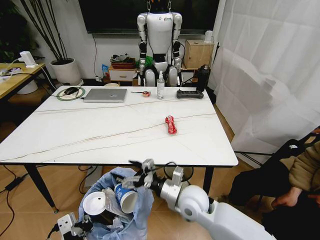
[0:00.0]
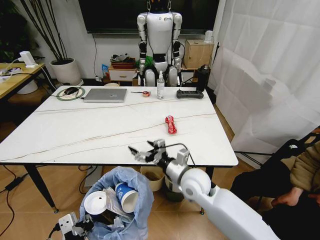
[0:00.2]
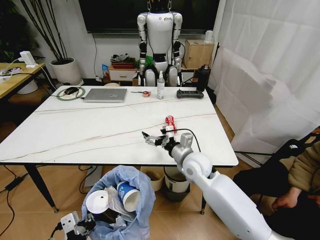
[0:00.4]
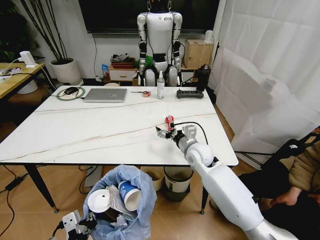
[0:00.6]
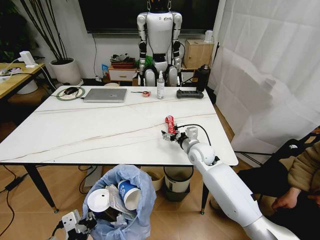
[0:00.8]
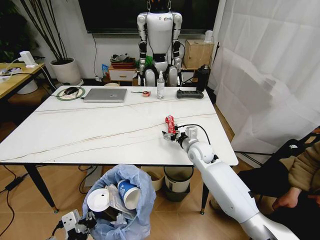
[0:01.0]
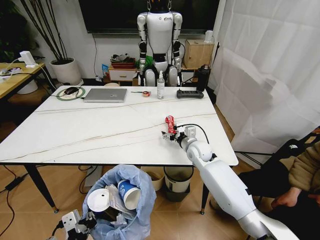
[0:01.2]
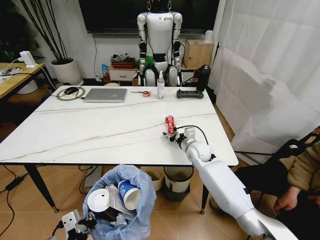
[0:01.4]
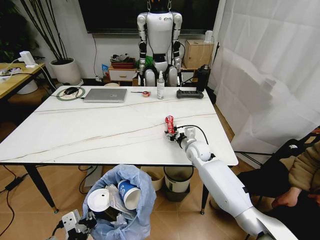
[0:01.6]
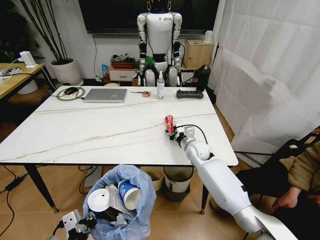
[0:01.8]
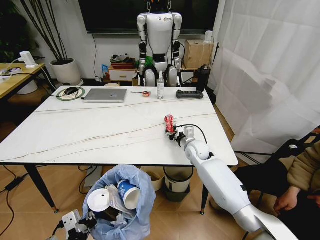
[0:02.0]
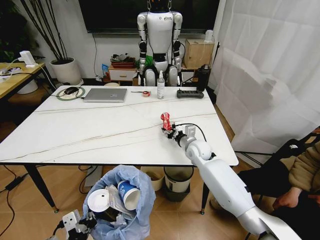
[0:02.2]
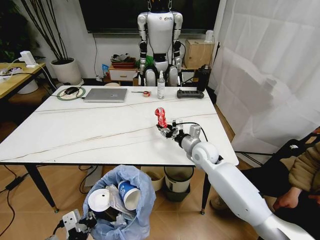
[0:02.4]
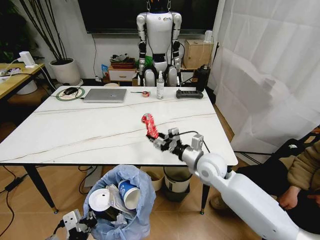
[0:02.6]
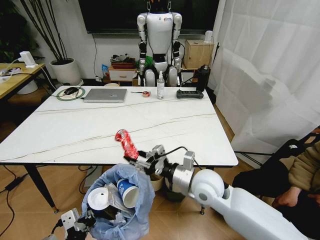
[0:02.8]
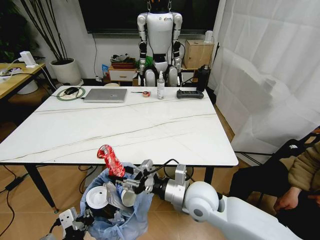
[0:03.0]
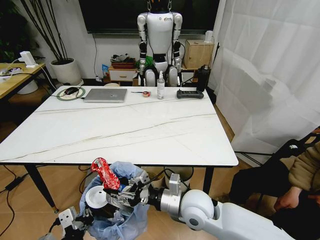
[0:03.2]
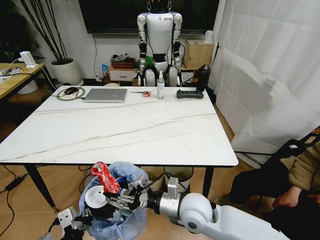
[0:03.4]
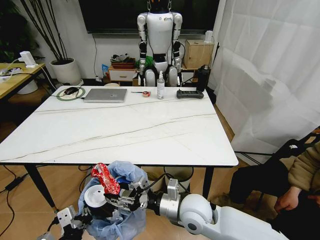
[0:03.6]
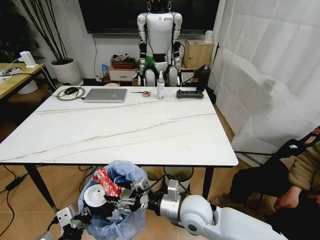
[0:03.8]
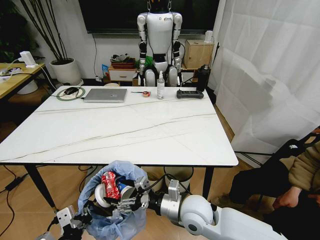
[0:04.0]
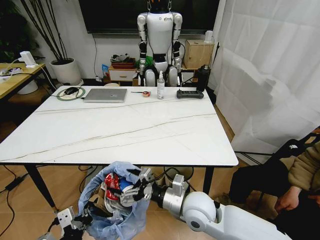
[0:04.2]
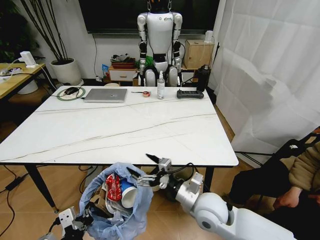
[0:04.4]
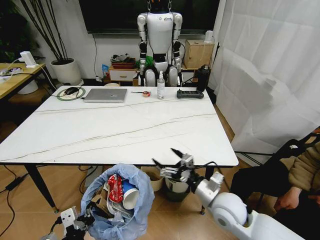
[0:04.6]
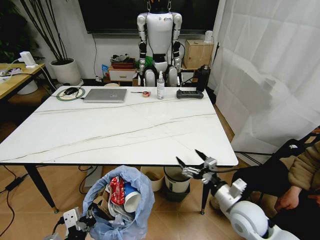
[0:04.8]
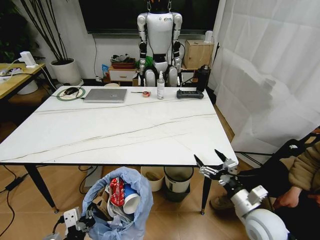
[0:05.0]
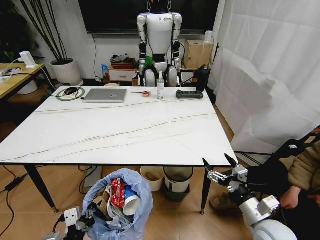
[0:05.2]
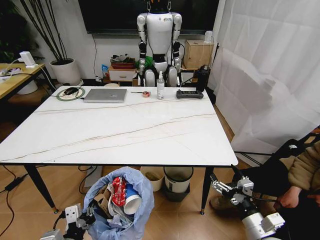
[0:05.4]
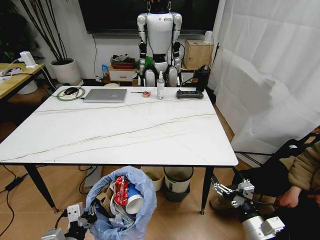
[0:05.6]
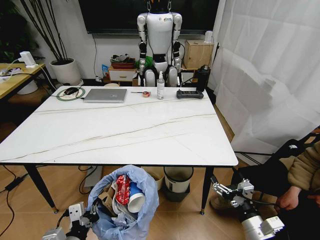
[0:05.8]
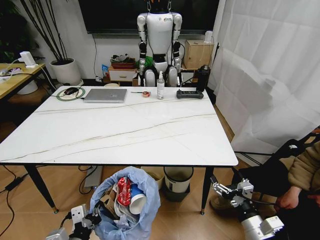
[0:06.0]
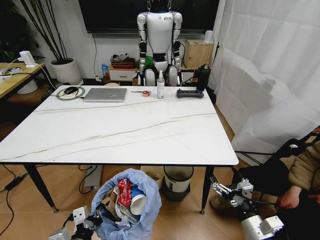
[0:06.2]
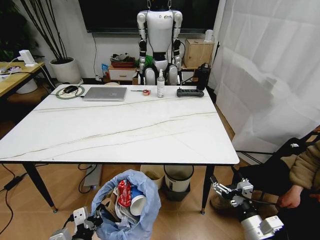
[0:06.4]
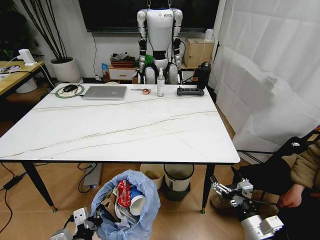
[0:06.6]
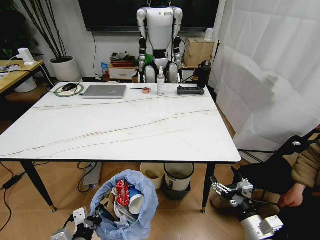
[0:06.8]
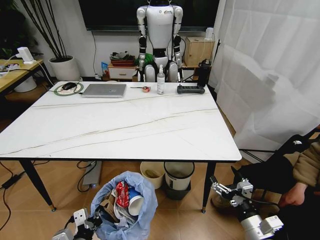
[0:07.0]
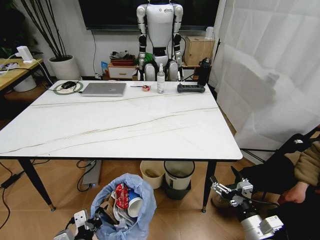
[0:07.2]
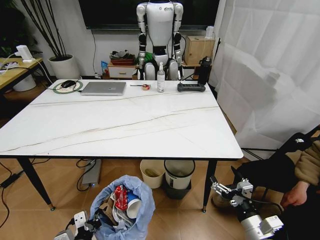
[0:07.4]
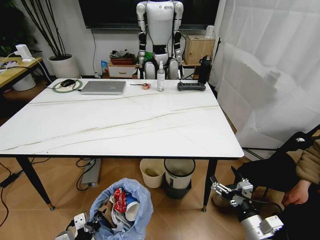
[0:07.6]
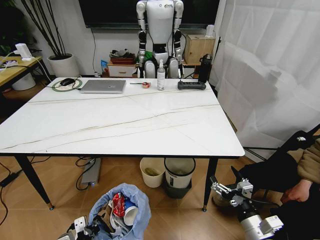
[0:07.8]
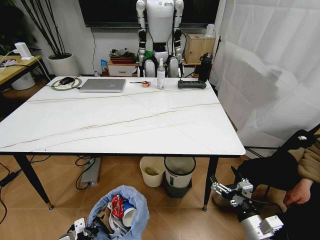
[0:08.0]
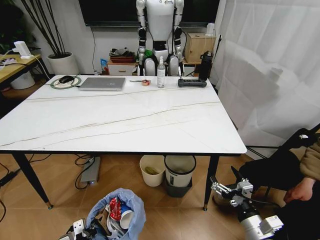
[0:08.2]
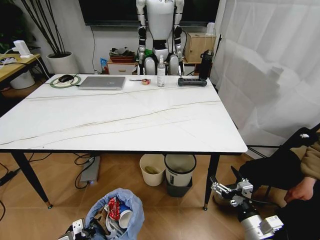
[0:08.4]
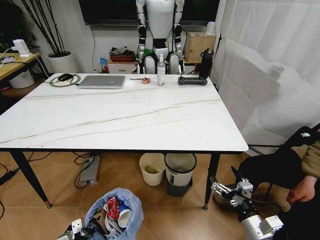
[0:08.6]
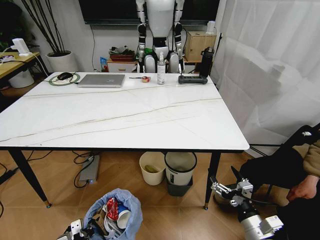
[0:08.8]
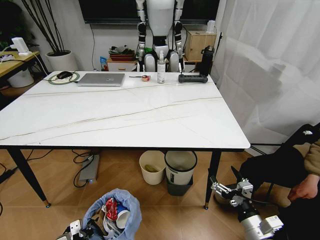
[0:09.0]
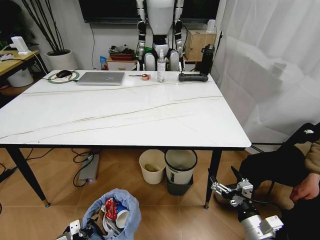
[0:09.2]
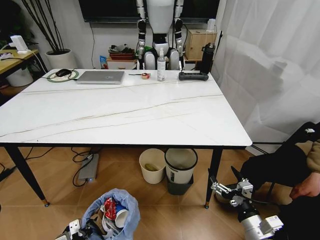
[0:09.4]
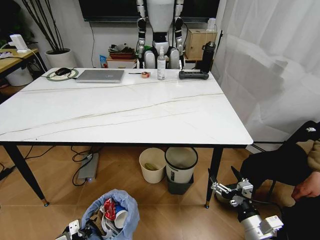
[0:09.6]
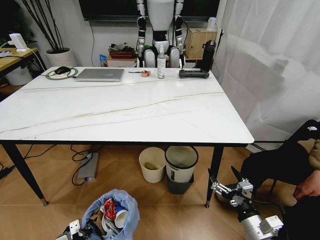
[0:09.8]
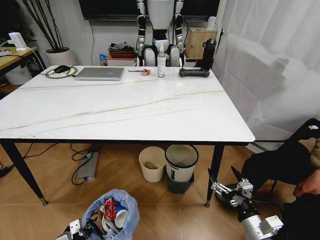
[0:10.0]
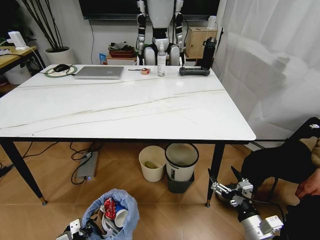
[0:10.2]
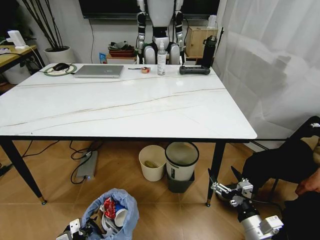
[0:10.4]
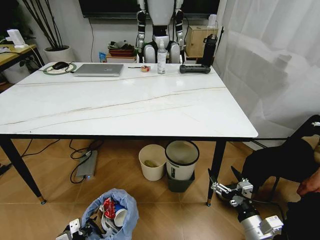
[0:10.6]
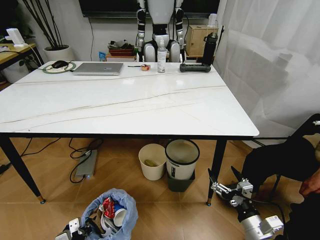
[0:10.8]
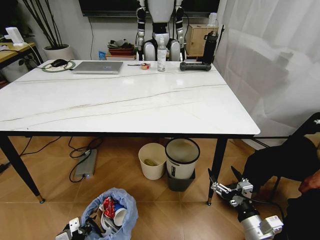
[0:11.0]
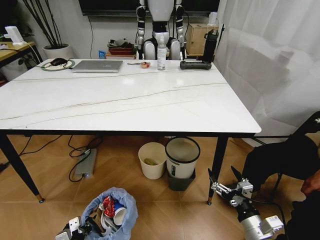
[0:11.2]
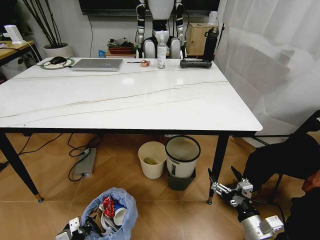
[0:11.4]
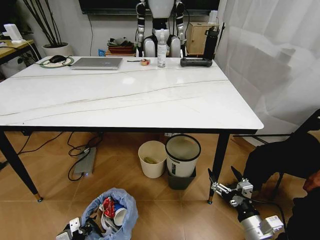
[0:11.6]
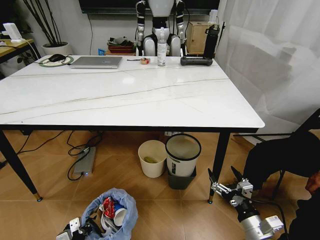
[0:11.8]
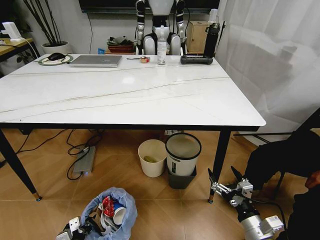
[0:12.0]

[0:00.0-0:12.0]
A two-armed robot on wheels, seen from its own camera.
Task of the whole recording: Pick up the trash bin and place the trash from the table into it.
0:00.0 to 0:01.6: The right gripper goes approximately 20 cm forward, and closes up.
0:01.6 to 0:03.0: The right gripper shifts roughly 20 cm backward.
0:03.0 to 0:04.4: The right gripper opens.
0:04.4 to 0:06.0: The right gripper moves to the right and backward, about 20 cm.
0:06.0 to 0:07.6: The left gripper heads downward, covering roughly 10 cm.
0:07.6 to 0:09.0: The left gripper is displaced downward by approximately 10 cm.

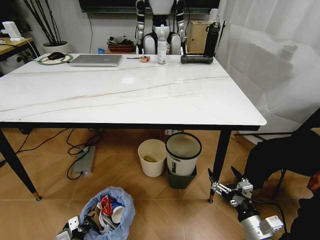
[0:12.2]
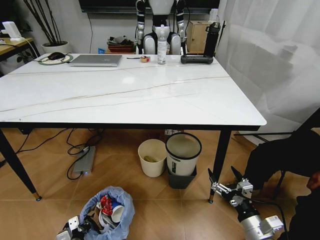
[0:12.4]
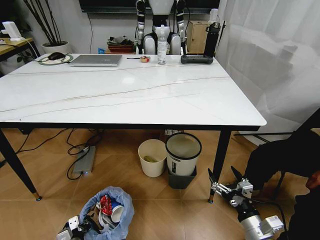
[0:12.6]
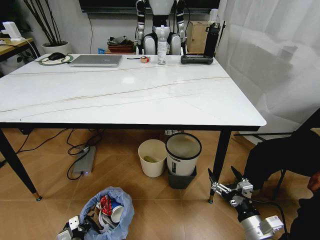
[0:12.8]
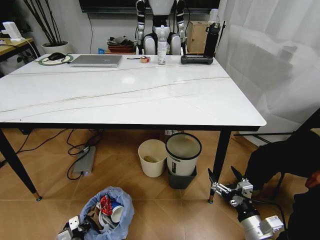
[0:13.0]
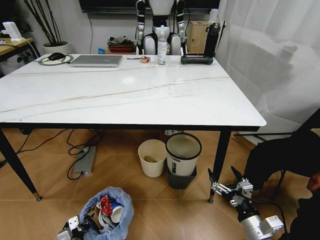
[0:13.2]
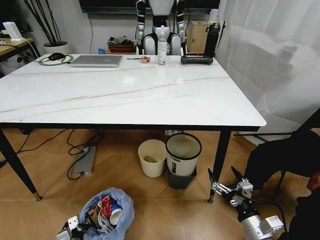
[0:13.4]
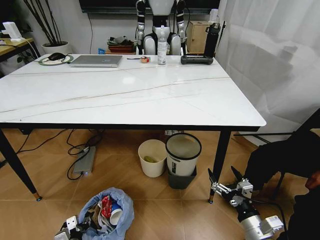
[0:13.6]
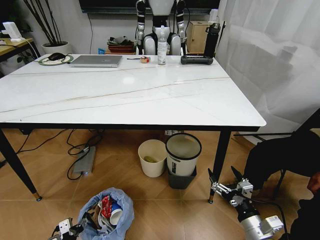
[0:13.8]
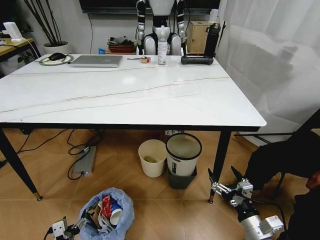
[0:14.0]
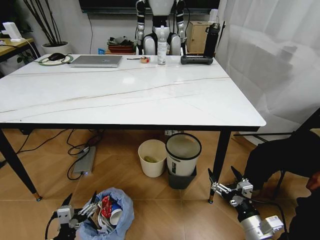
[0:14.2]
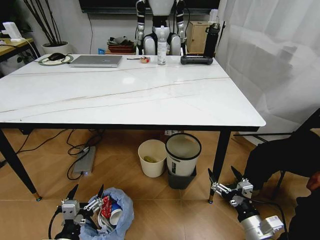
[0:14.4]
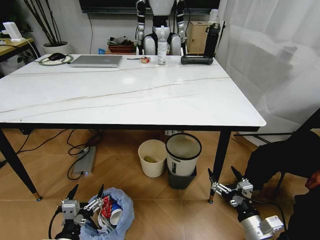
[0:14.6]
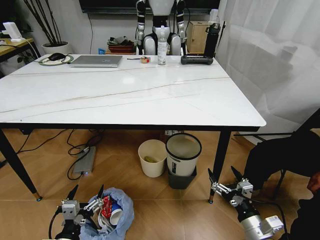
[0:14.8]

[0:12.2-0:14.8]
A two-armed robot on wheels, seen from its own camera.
Task of the whole recording: Pick up the trash bin and place the trash from the table into it.
0:12.2 to 0:13.4: The grippers move only a little.
0:13.4 to 0:14.8: The left gripper shifts some 20 cm upward, and opens up.

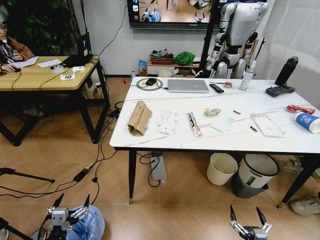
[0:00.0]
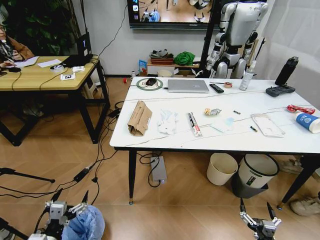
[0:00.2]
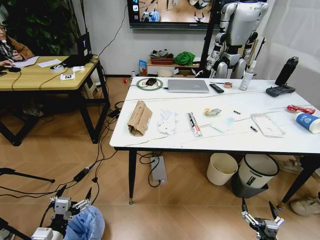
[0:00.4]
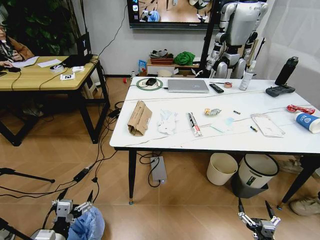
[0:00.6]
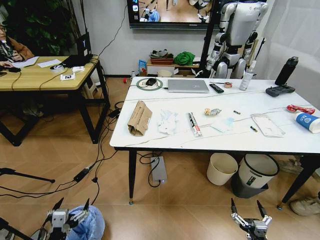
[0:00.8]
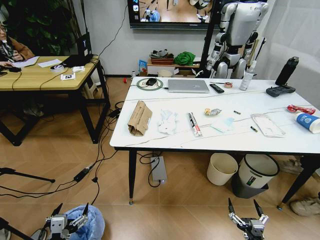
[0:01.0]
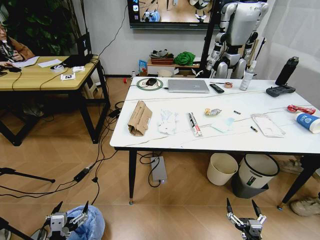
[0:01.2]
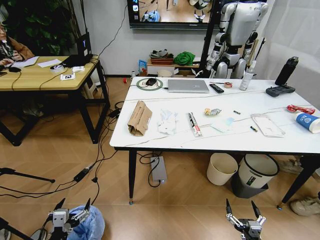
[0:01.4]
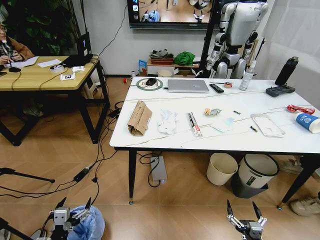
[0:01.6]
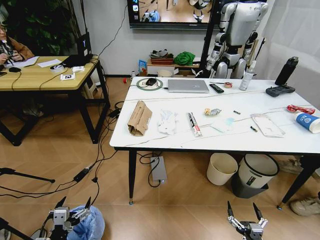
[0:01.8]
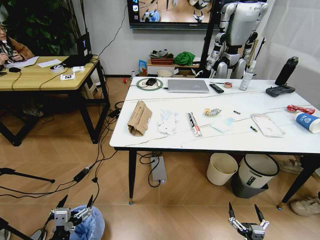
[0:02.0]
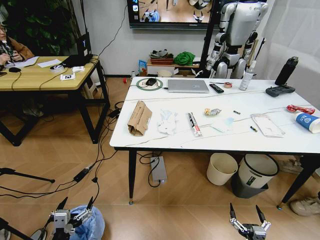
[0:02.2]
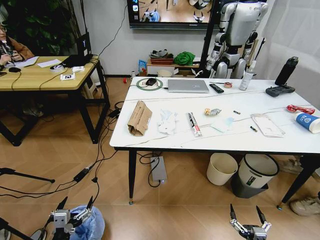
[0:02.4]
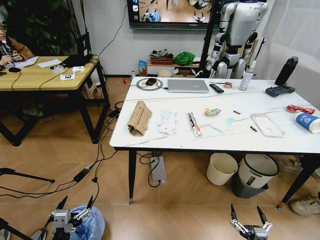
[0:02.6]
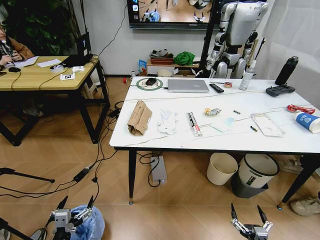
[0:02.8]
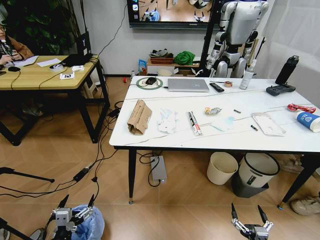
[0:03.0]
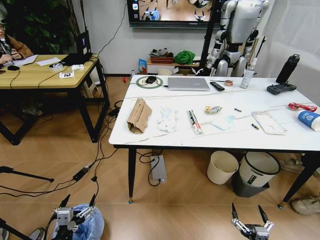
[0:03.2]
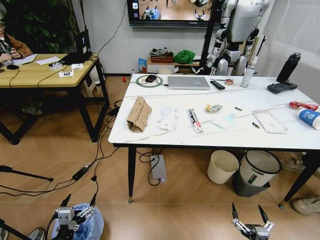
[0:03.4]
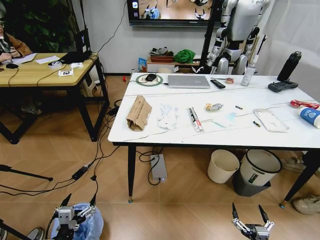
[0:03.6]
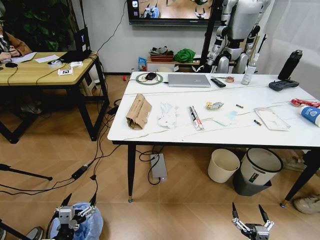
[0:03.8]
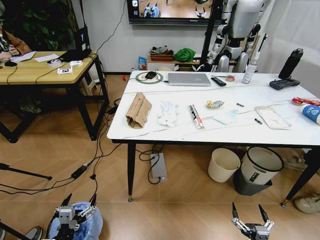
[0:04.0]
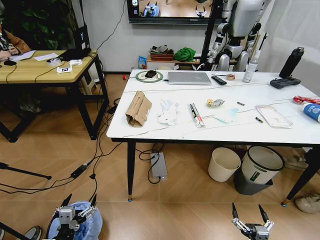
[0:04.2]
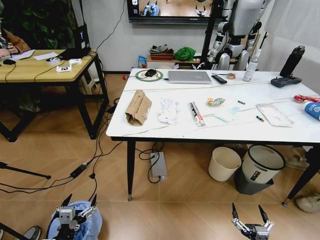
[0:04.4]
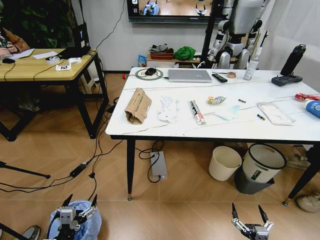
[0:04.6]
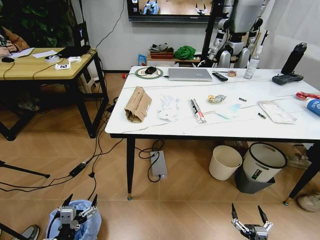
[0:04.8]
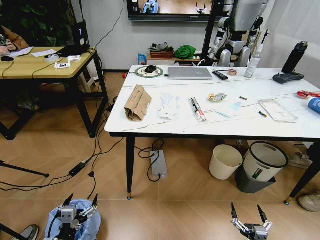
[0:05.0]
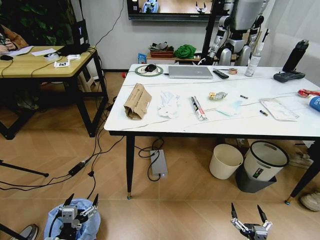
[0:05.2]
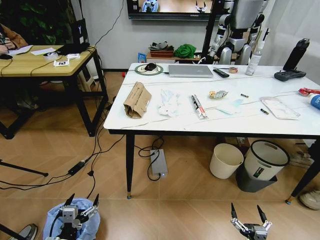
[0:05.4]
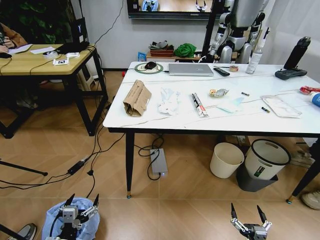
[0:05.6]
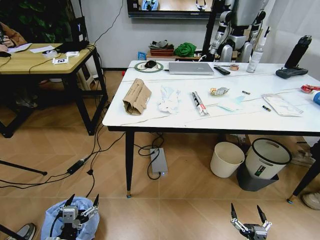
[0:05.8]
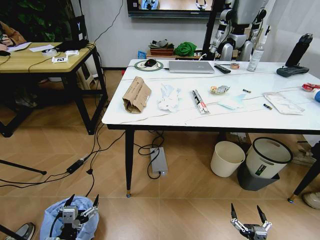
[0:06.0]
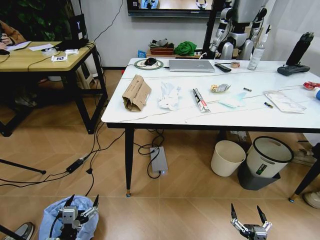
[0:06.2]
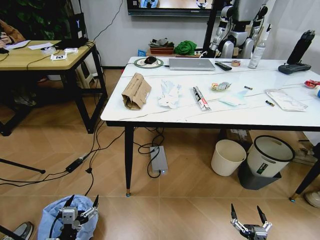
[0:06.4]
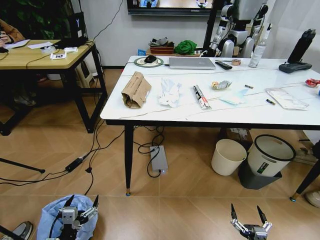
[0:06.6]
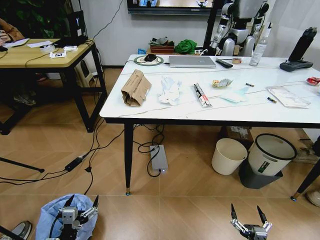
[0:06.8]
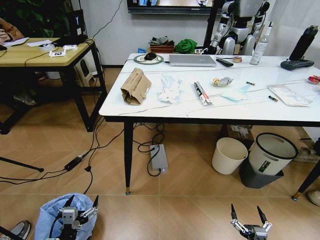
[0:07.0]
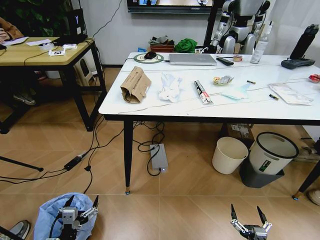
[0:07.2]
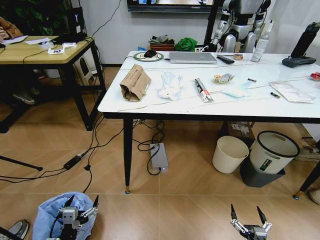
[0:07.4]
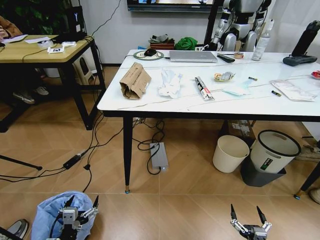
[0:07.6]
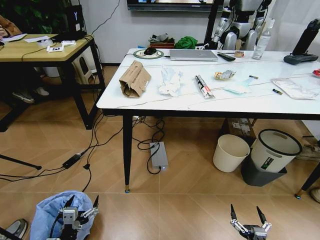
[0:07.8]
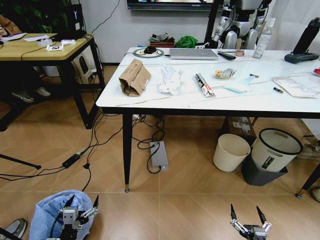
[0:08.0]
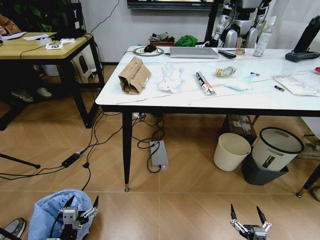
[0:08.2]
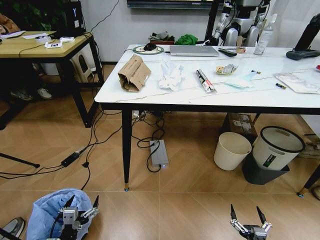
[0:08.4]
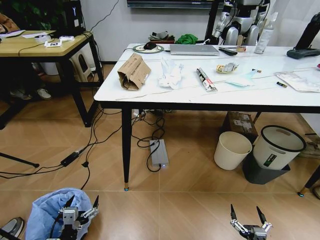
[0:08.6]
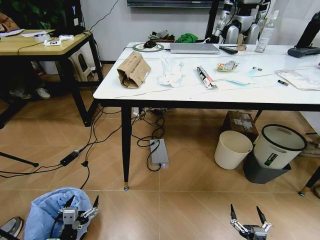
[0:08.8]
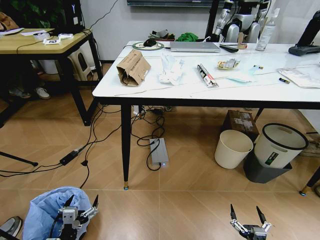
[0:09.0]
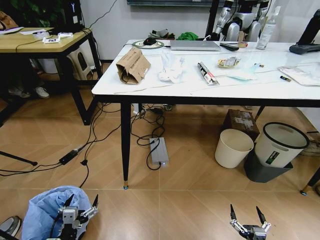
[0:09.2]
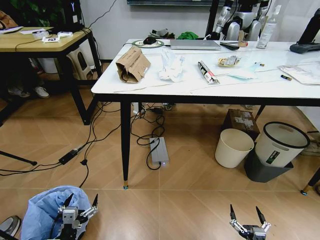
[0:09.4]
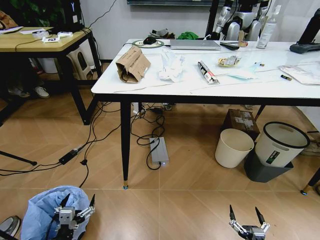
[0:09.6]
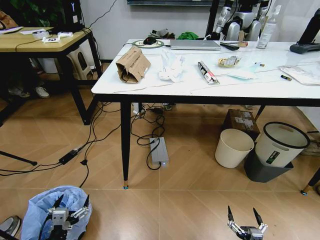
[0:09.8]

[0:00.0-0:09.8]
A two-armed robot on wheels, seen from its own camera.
Task of the whole recording: Pick up the trash bin and place the trash from the table into it.
0:01.4 to 0:02.8: The grippers make only small movements.